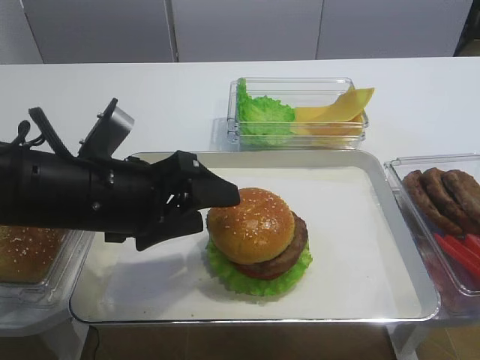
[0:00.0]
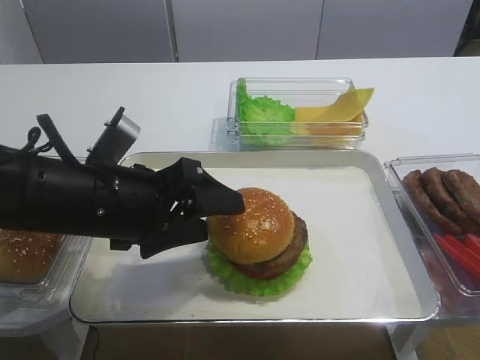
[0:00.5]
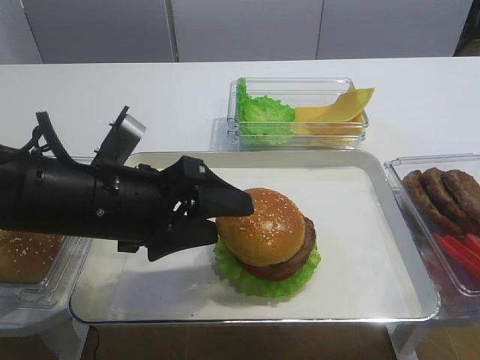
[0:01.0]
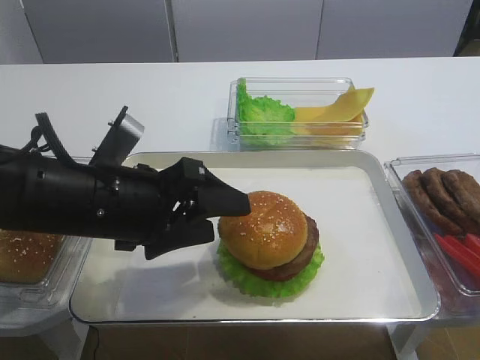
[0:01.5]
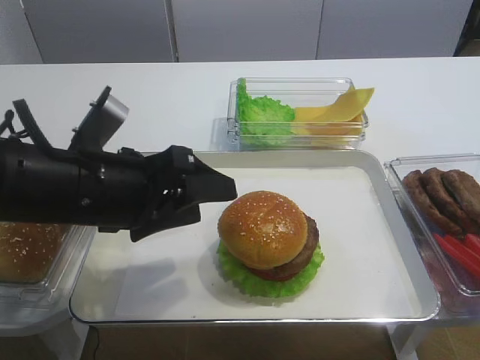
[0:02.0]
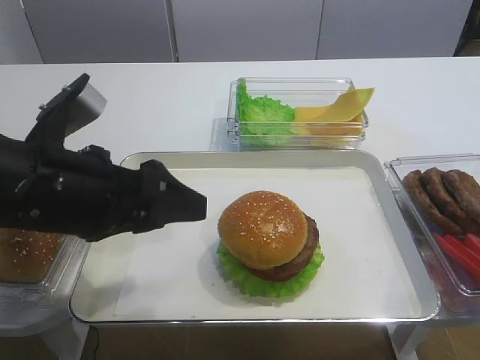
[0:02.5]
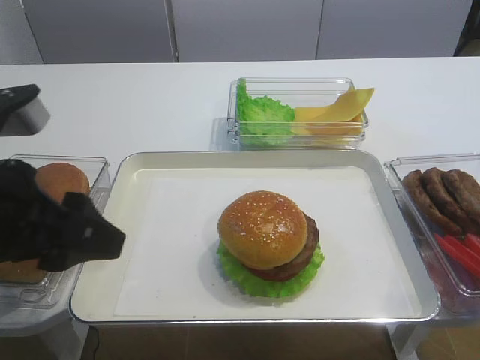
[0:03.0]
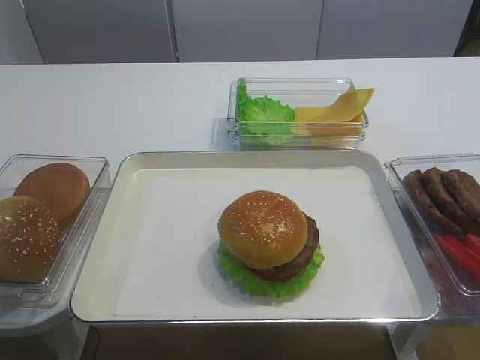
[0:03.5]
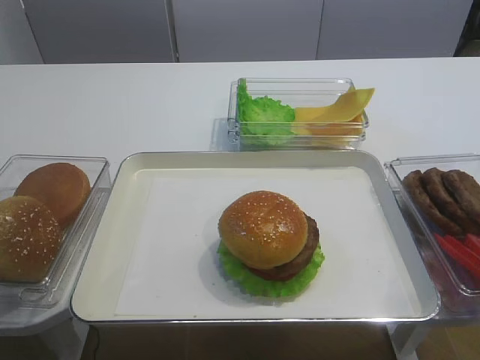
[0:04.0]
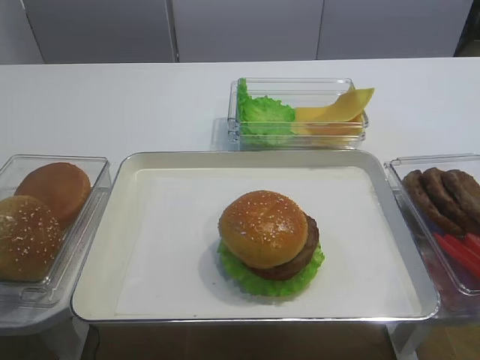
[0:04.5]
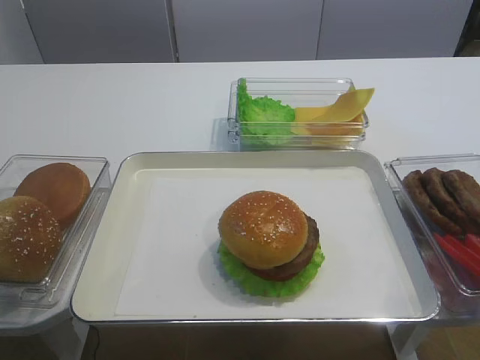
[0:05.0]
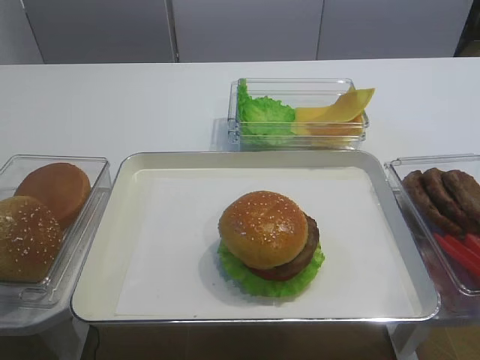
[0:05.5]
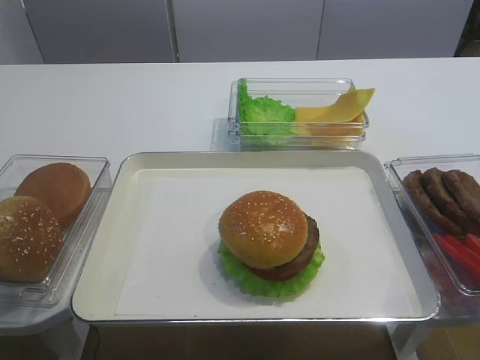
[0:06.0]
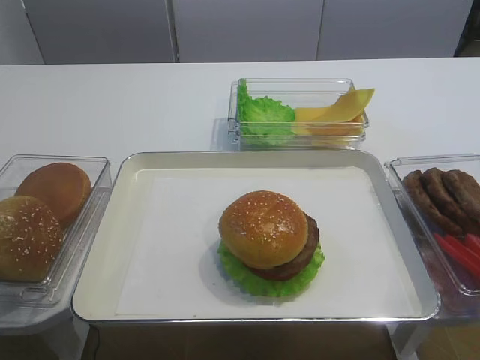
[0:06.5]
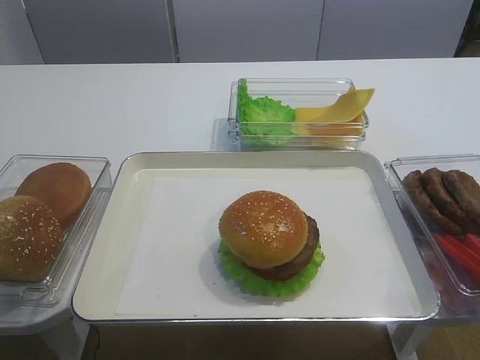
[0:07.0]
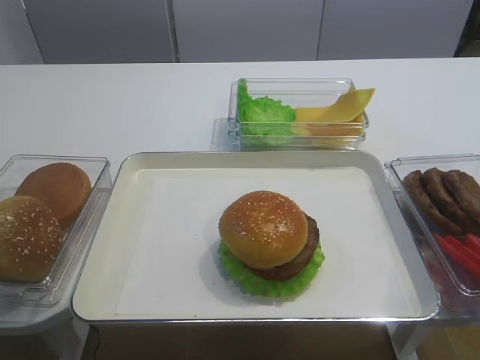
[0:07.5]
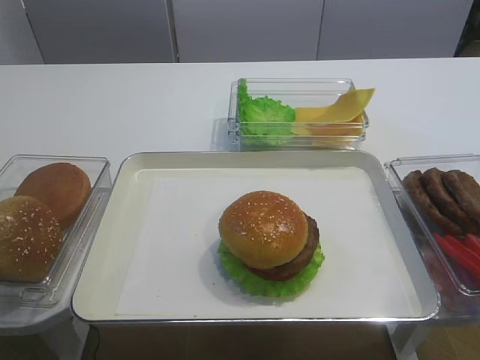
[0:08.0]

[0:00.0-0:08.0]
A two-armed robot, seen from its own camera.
Step, 0:00.0 to 0:02.0: Place the hamburger lid on the cutlet slice with the left gripper.
0:00.0 to 0:02.0: The grippers move only a little.
0:02.0 to 0:04.0: The left gripper heads backward, to the left and upward, covering roughly 30 cm.

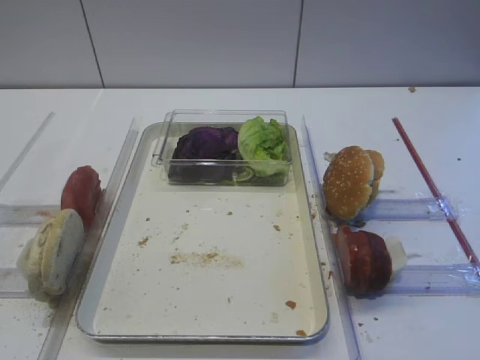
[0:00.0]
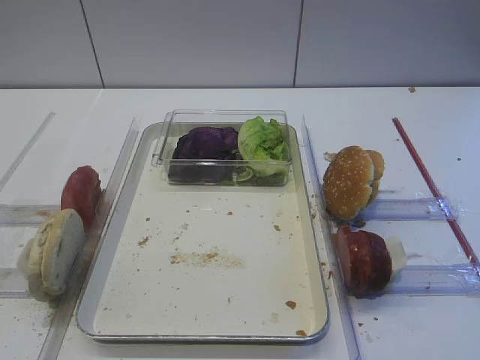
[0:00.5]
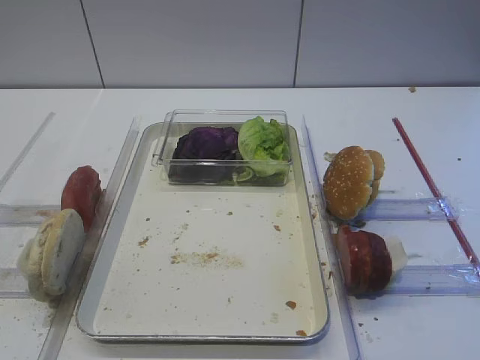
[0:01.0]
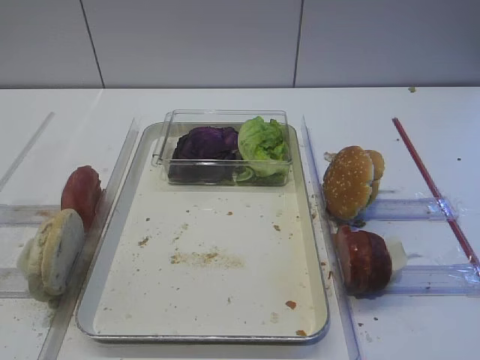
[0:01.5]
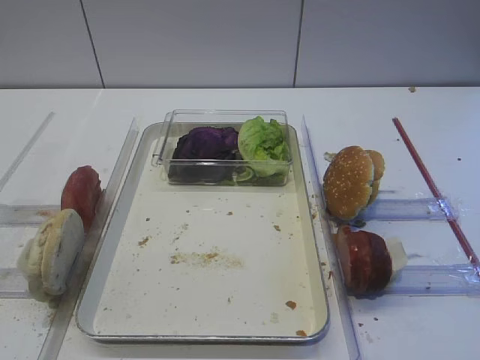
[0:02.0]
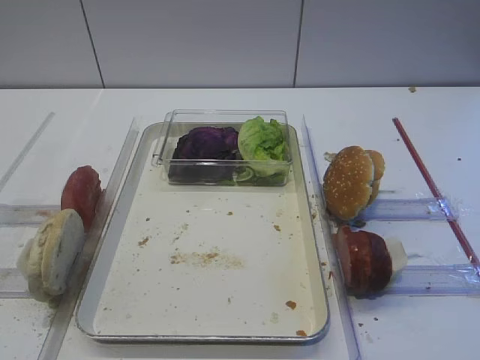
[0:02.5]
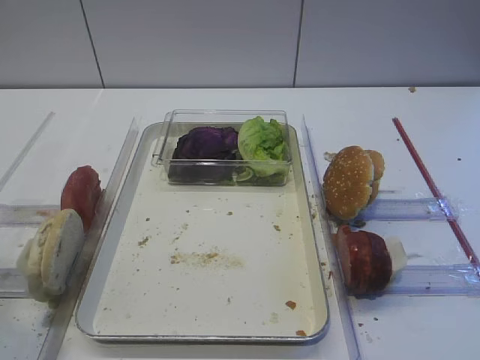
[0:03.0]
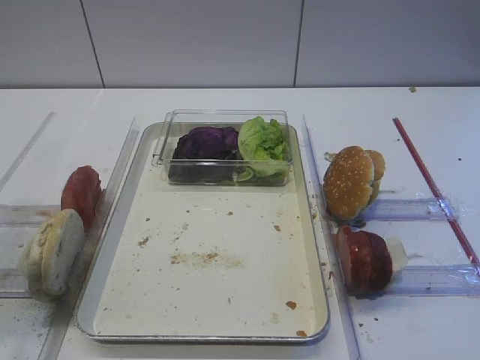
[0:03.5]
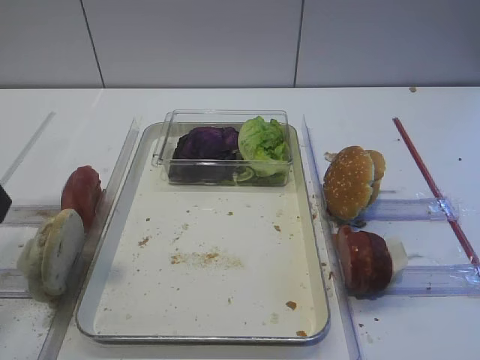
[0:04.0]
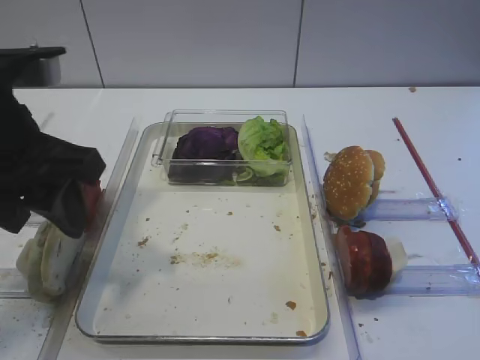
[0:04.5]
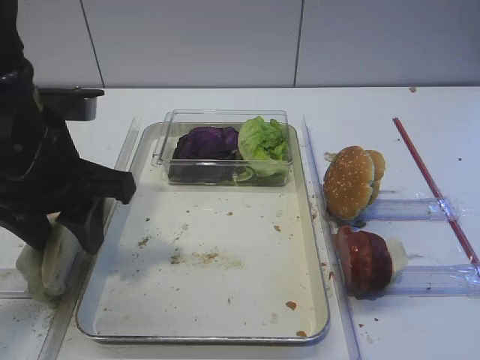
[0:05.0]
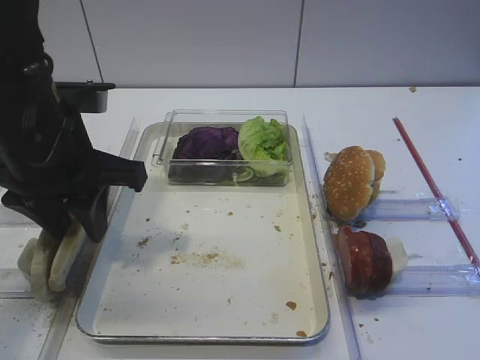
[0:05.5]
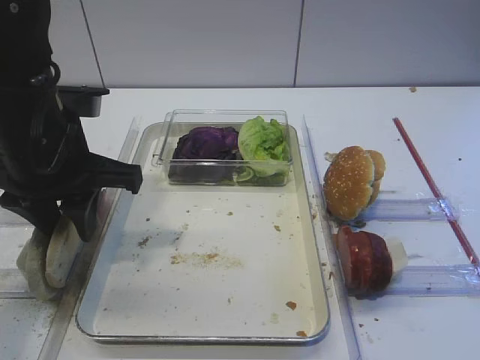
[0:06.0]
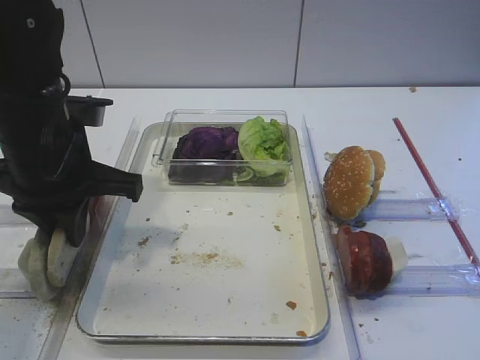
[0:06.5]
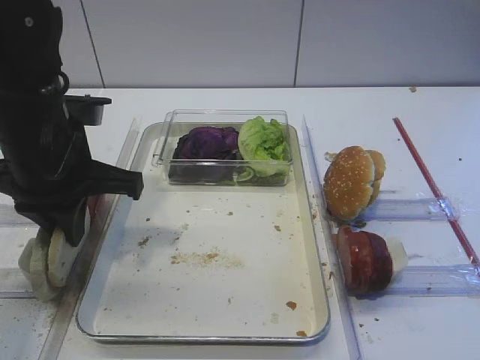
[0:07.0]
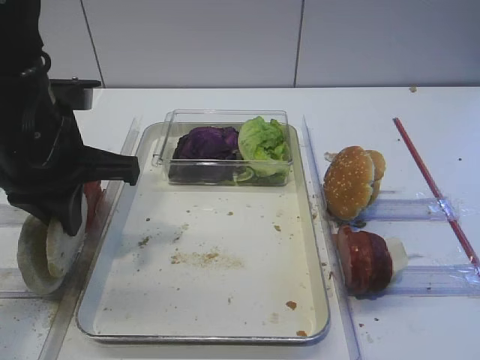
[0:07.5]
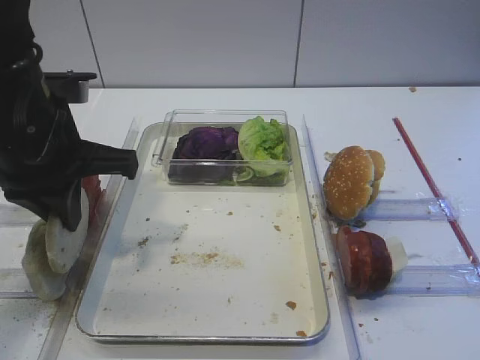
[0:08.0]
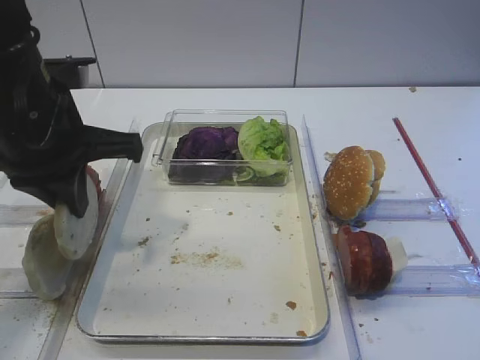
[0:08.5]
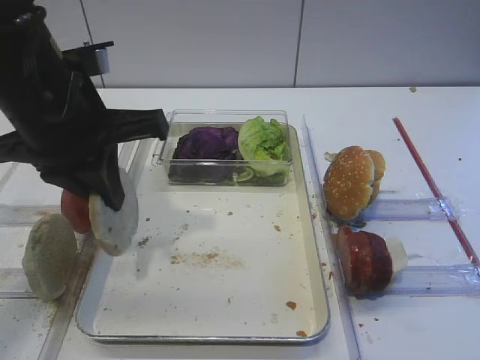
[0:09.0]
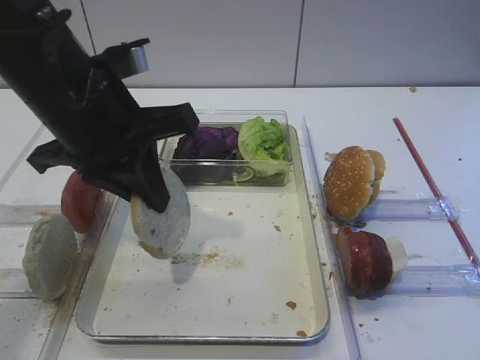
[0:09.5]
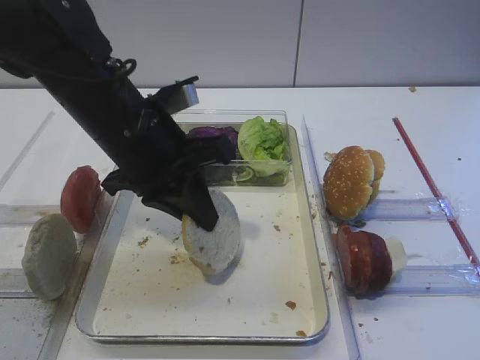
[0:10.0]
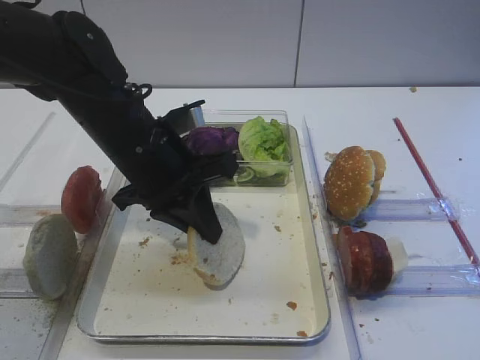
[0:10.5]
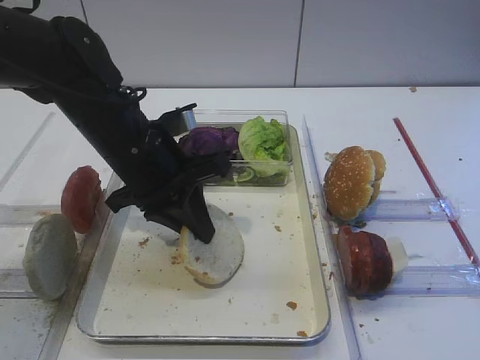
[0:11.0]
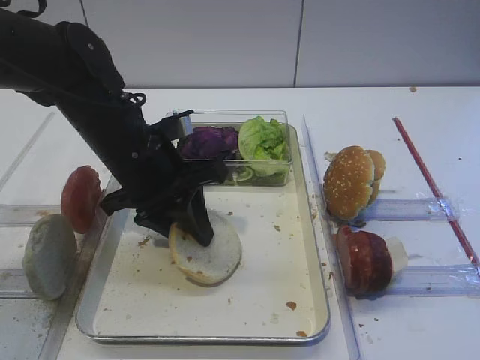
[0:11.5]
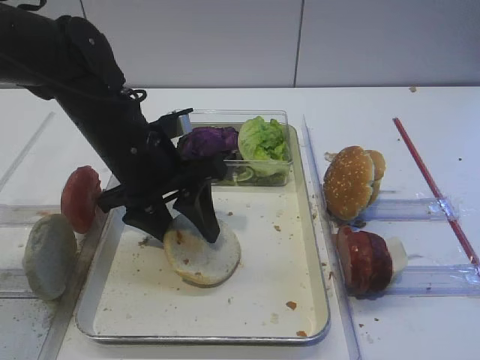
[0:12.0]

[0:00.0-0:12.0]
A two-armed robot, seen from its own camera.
Step, 0:00.0 to 0:08.5: Pick up the bread slice with the left gripper.
0:02.0 to 0:04.0: The left gripper moves forward, about 20 cm.
0:04.0 to 0:06.0: The left gripper heads forward, to the right and downward, covering approximately 15 cm, and closes up.
0:06.0 to 0:08.0: The left gripper closes its fingers.
0:08.0 to 0:10.0: The left gripper goes about 5 cm to the right.
0:10.0 to 0:12.0: The left gripper opens its fingers.

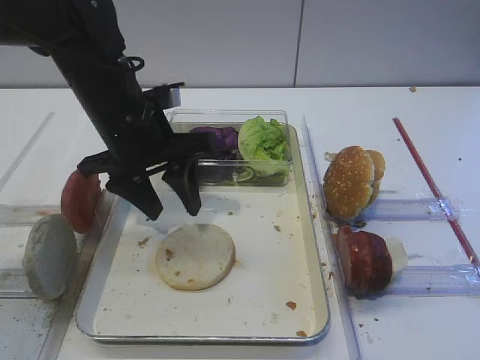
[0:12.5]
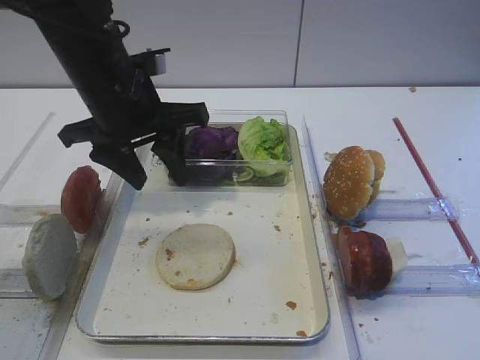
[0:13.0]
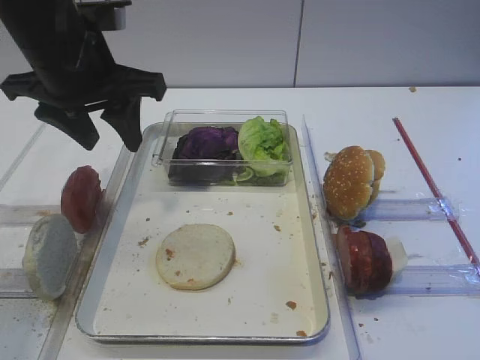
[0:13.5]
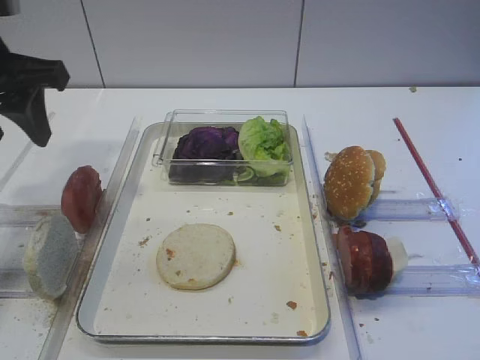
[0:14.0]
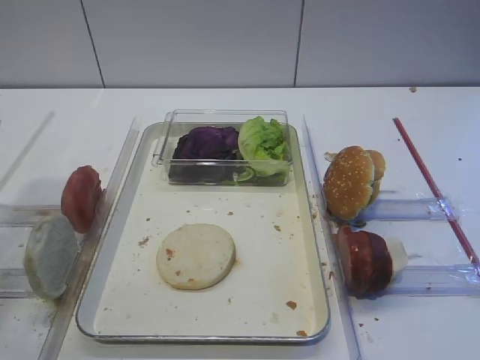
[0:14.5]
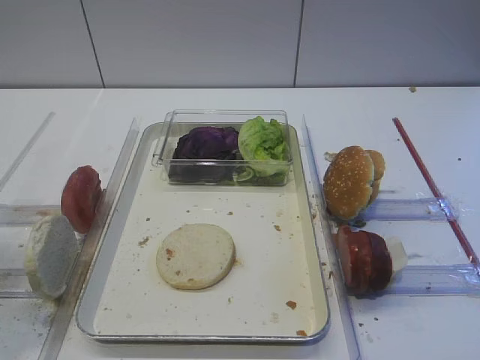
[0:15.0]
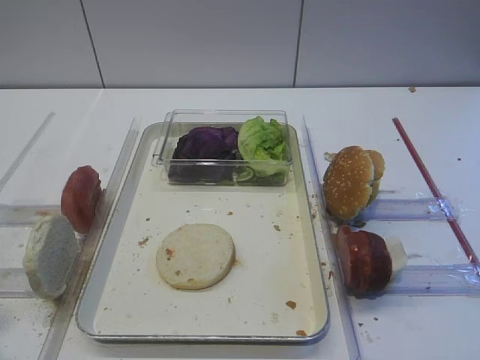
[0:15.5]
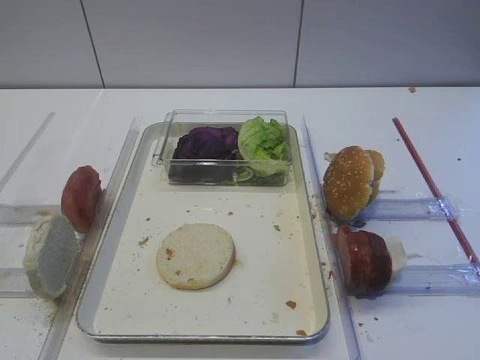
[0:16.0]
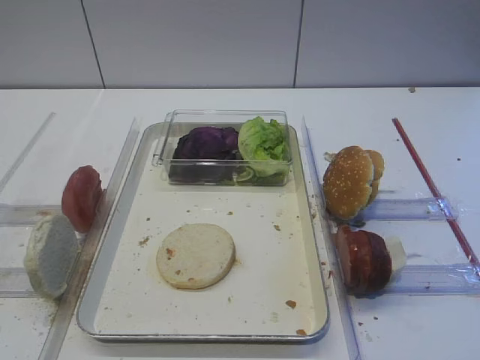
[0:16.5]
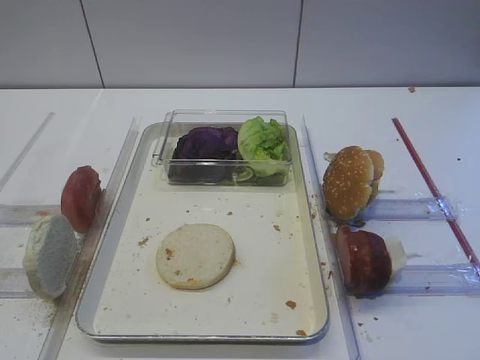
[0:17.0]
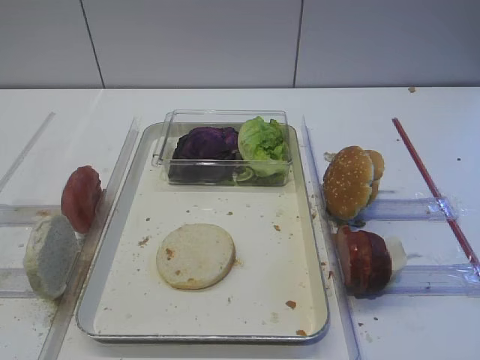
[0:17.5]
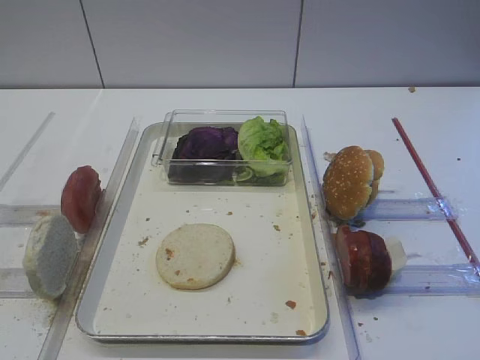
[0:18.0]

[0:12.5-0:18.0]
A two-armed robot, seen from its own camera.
0:12.5 to 0:14.5: The left gripper moves to the left, backward and upward, about 20 cm.
0:14.5 to 0:16.0: The left gripper shifts about 20 cm backward.
